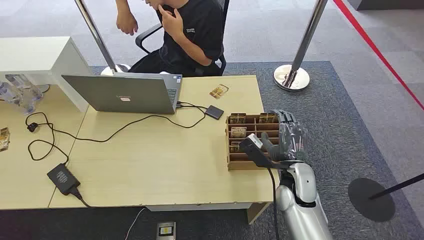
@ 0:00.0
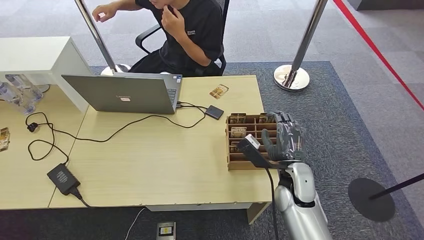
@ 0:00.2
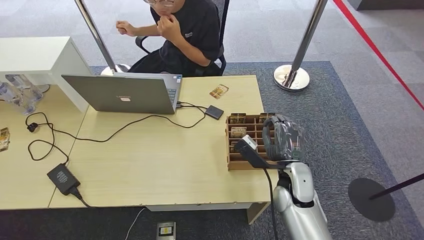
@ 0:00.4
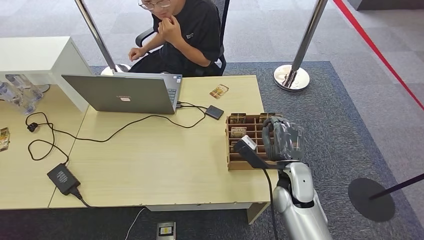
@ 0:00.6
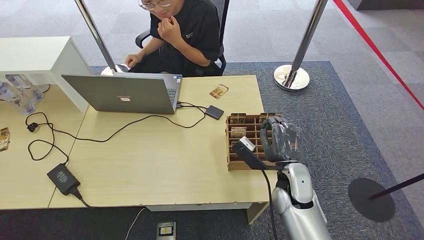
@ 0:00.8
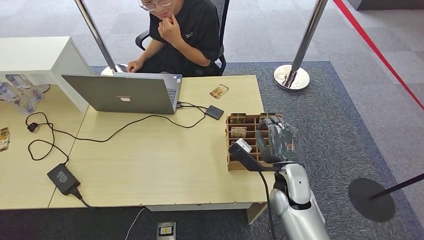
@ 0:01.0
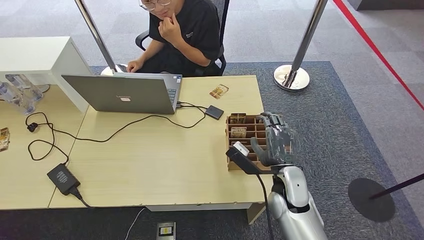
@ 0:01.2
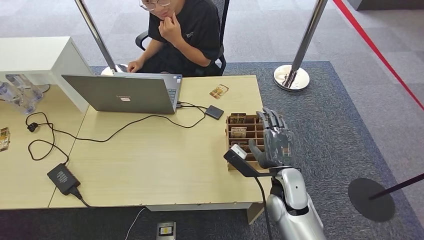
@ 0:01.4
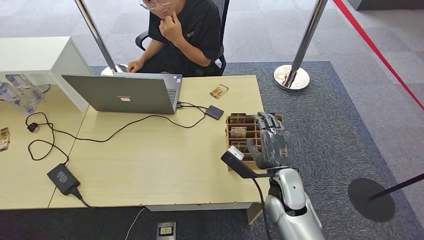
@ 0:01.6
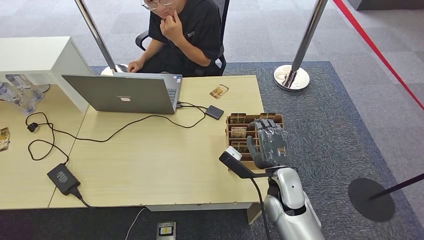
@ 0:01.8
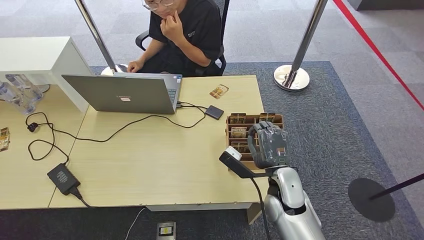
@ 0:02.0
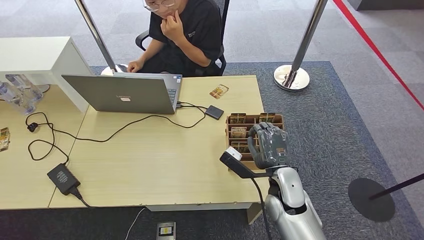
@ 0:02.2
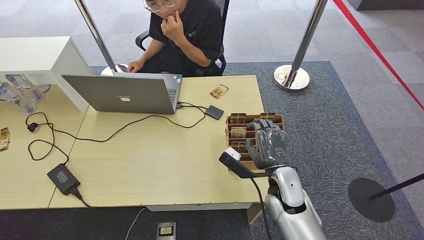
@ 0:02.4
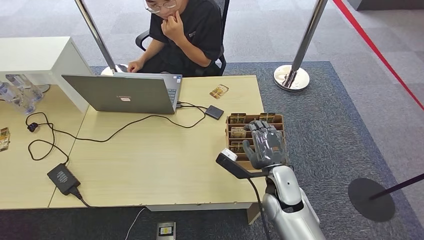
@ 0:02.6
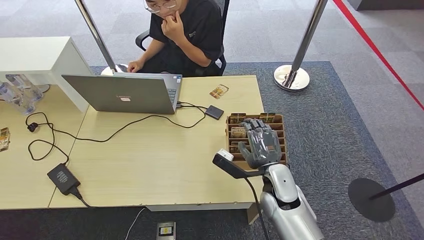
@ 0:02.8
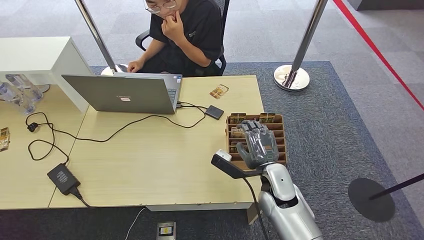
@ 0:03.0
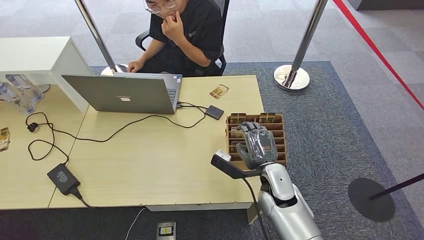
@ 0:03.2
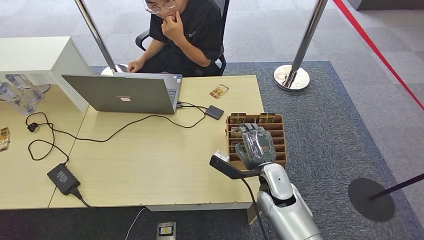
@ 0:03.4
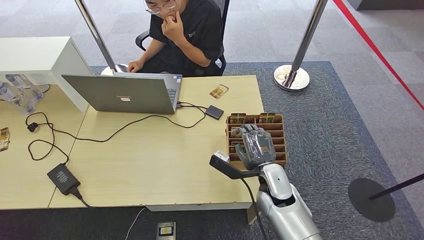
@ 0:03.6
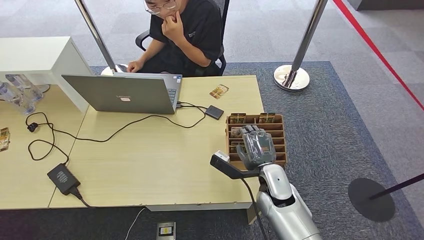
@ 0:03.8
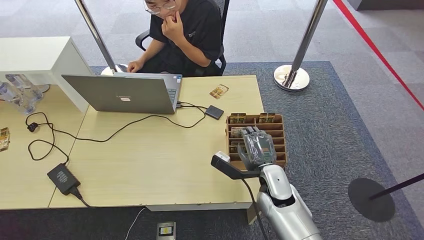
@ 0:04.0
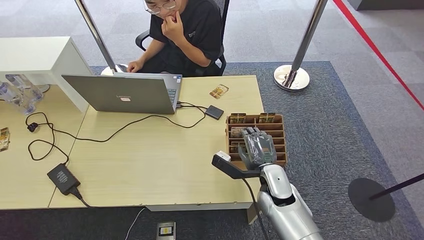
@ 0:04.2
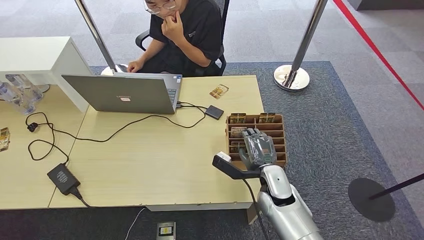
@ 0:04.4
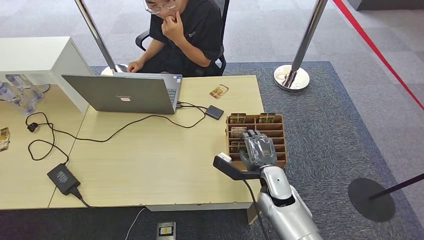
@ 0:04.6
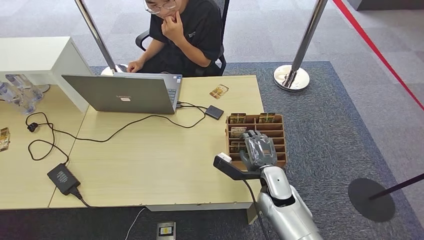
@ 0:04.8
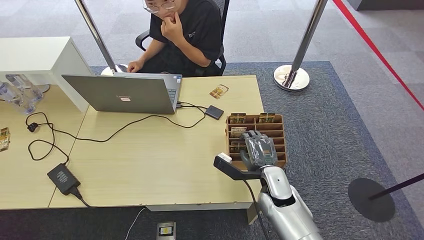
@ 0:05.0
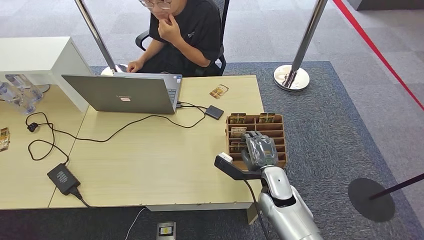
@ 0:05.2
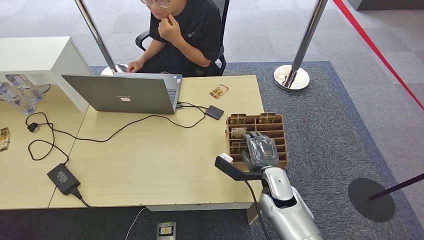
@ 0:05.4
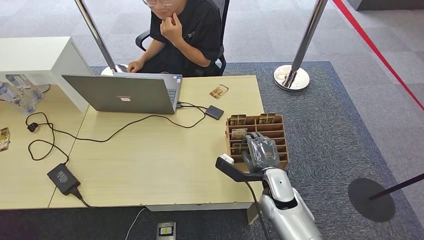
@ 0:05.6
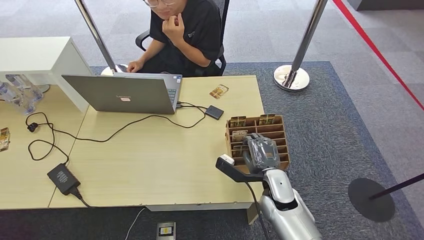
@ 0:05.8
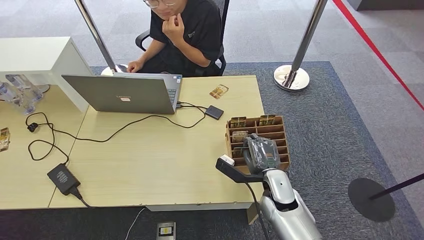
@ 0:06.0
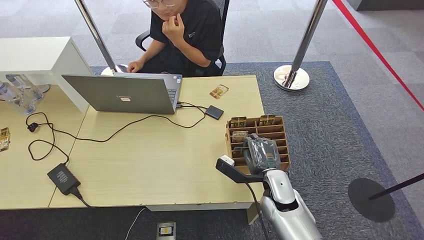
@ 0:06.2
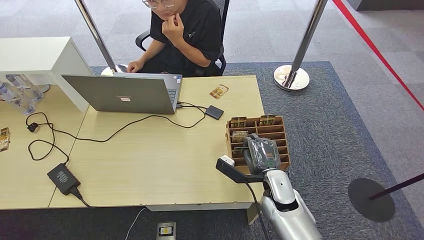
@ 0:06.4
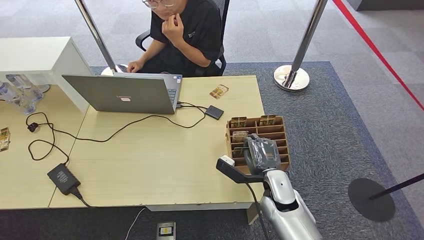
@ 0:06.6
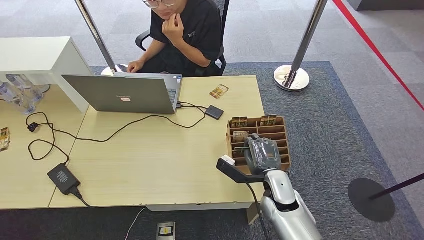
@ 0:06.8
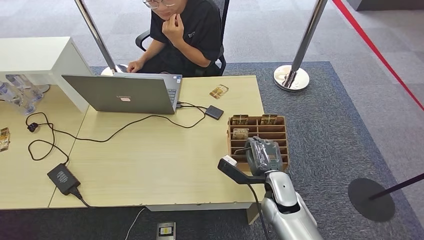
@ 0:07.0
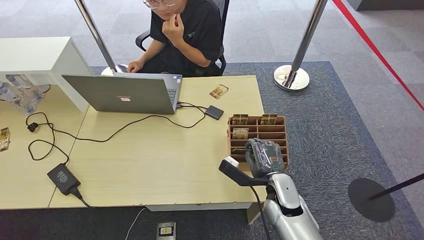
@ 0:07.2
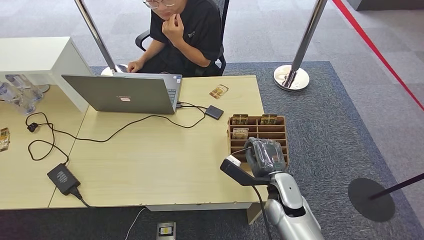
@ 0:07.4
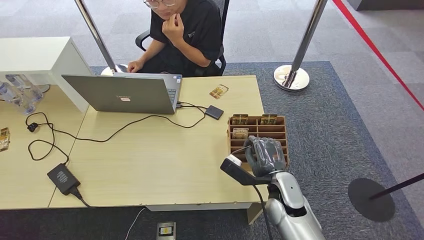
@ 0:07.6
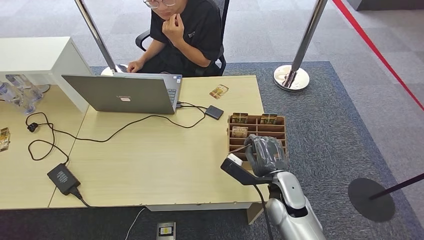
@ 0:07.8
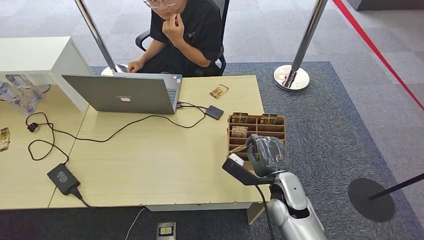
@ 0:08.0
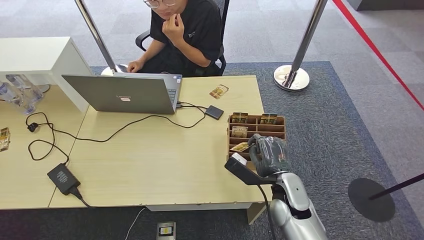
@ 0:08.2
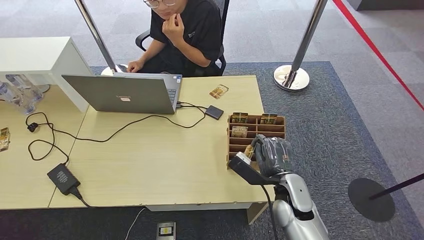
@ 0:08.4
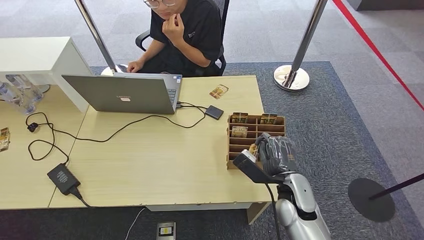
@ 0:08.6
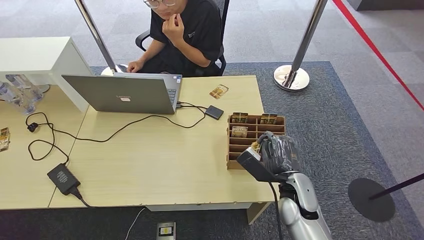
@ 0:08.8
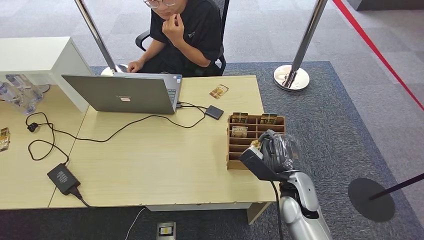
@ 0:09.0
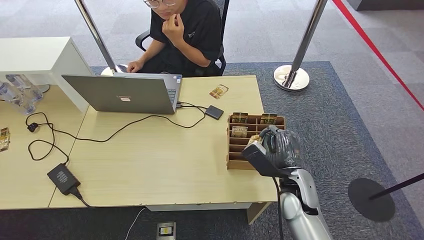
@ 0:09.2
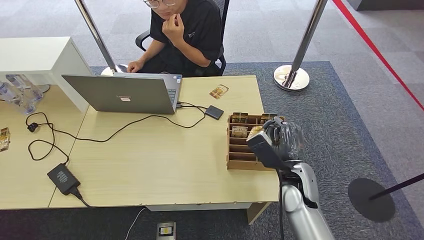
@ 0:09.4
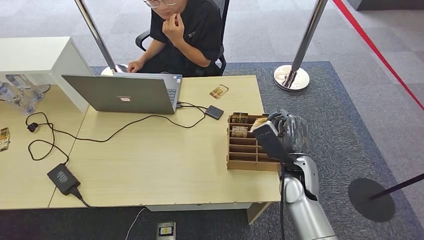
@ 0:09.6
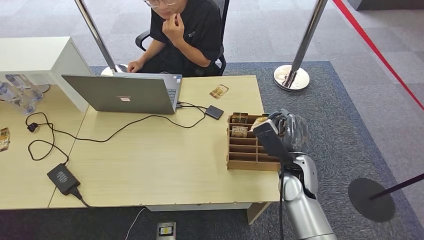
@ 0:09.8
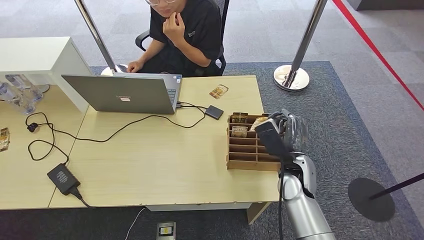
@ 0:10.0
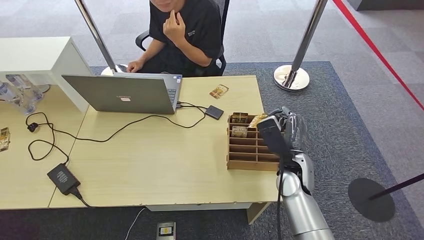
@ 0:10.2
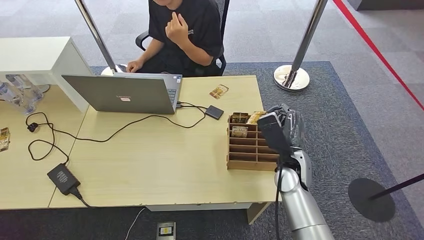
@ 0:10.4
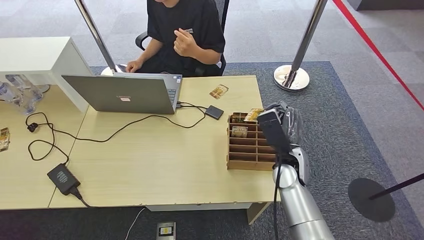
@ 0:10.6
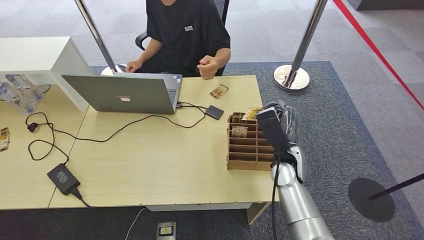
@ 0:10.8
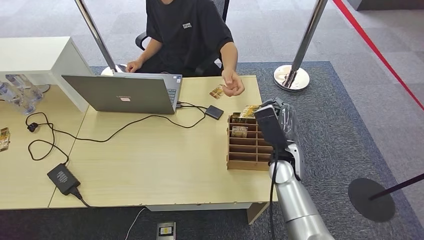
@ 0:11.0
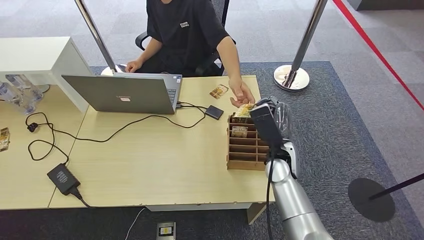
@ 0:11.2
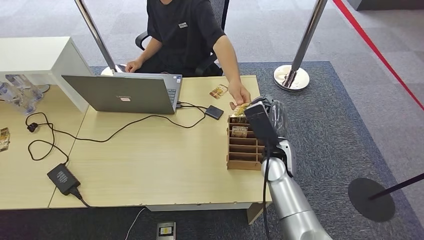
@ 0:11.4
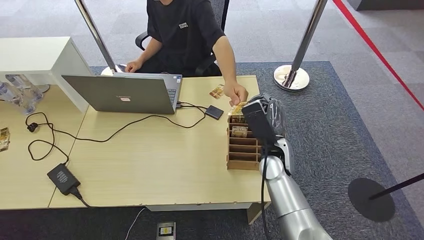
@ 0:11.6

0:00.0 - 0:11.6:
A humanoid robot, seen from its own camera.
Step, 0:00.0 - 0:10.8: Pick up the key card from the card box.
Step, 0:11.0 - 0:11.6: Hand the key card to the target.
0:01.4 - 0:04.4: There are only small adjustments of the hands.
0:04.4 - 0:05.8: Both hands stay about where they are.
0:05.8 - 0:07.2: The hands make only small movements.
0:07.2 - 0:08.8: The hands move only a little.
0:08.8 - 0:10.2: The right hand moves forward, roughly 5 cm.
0:10.2 - 0:11.6: The right hand ends up approximately 5 cm from where it was.

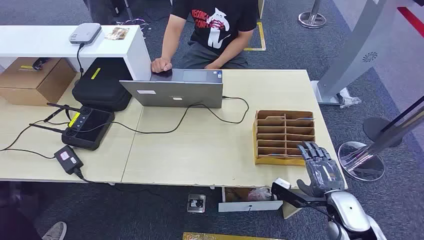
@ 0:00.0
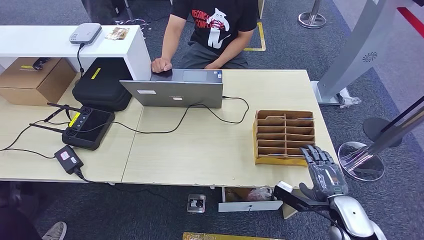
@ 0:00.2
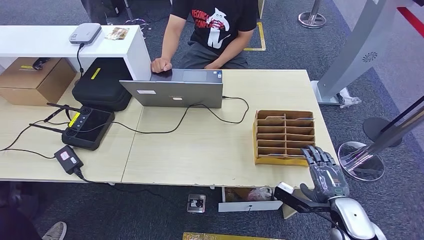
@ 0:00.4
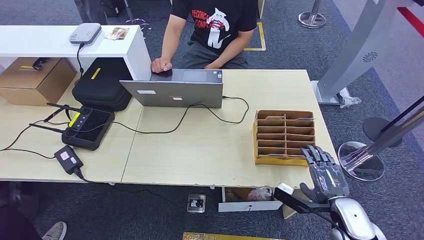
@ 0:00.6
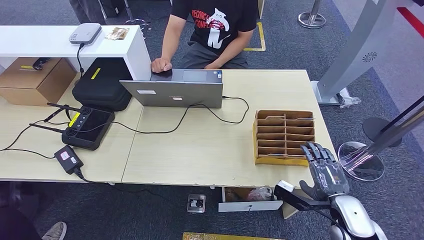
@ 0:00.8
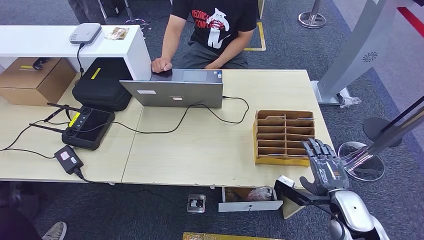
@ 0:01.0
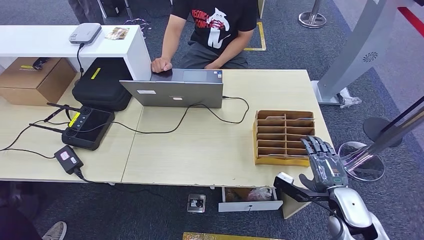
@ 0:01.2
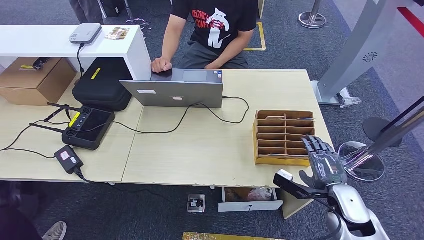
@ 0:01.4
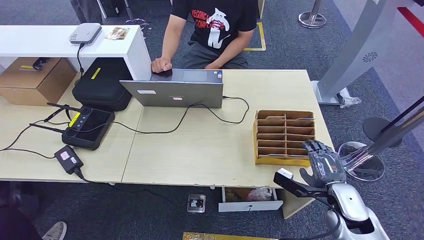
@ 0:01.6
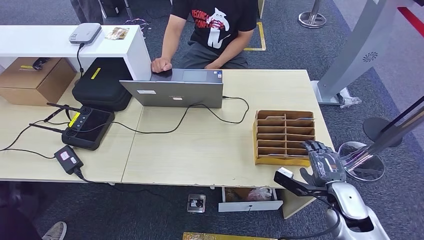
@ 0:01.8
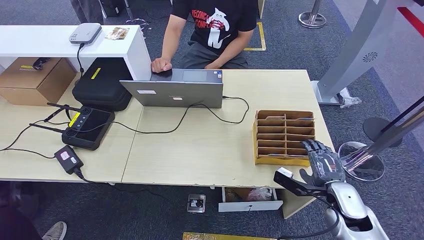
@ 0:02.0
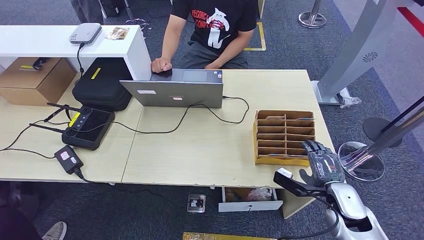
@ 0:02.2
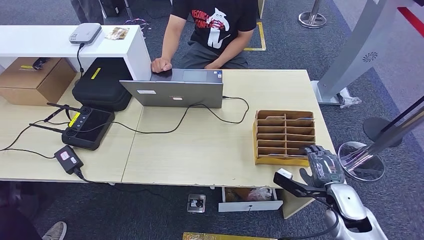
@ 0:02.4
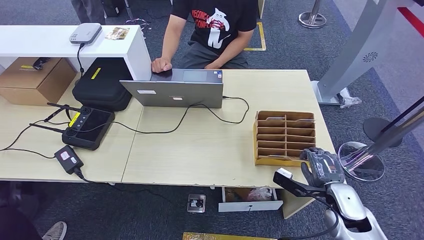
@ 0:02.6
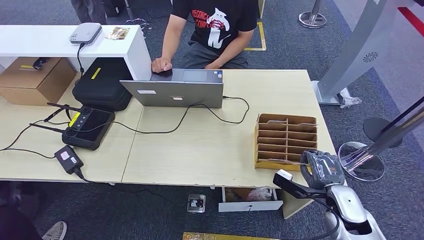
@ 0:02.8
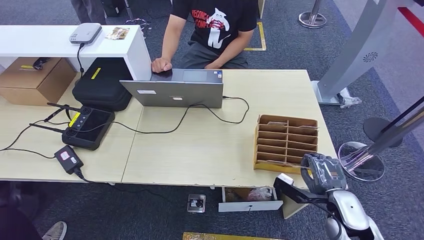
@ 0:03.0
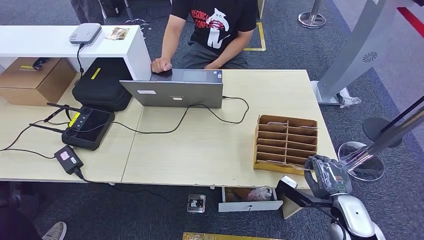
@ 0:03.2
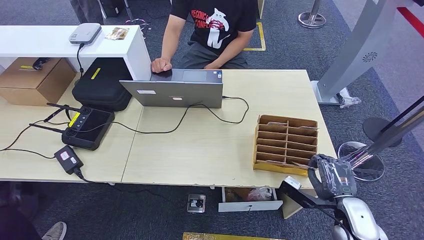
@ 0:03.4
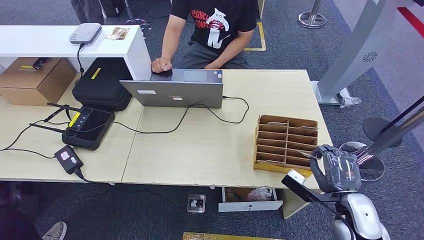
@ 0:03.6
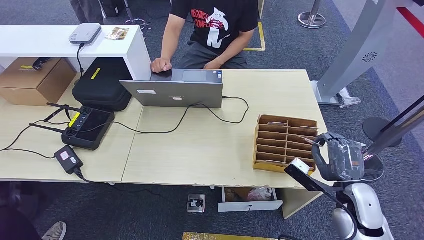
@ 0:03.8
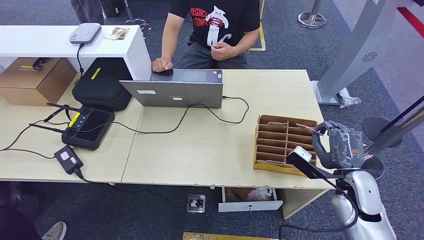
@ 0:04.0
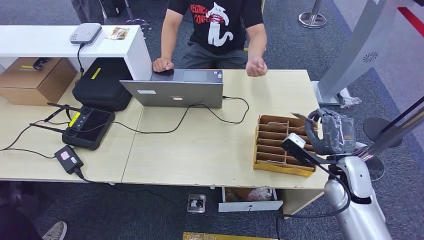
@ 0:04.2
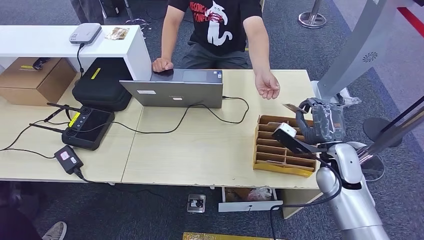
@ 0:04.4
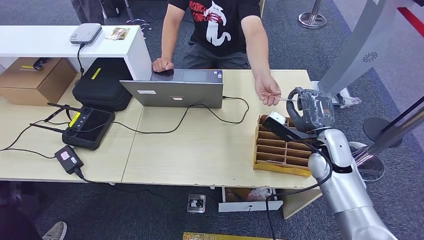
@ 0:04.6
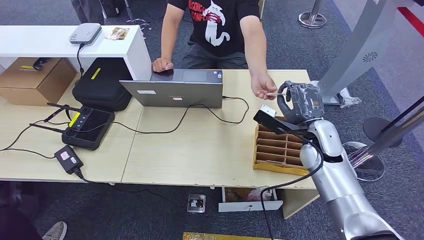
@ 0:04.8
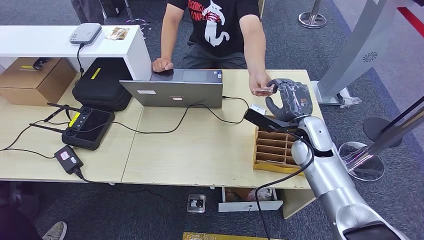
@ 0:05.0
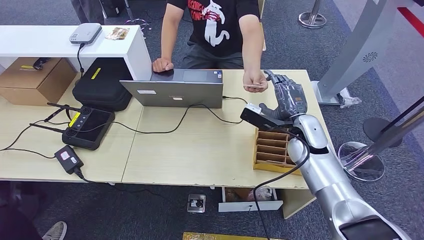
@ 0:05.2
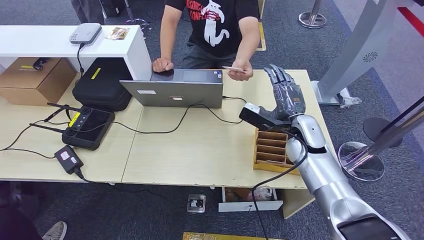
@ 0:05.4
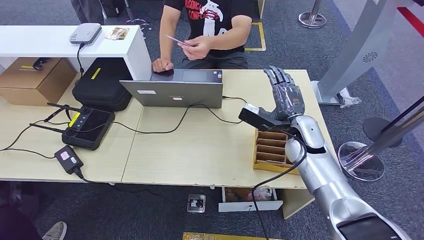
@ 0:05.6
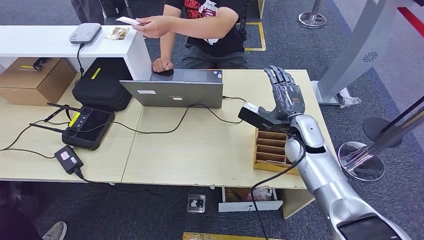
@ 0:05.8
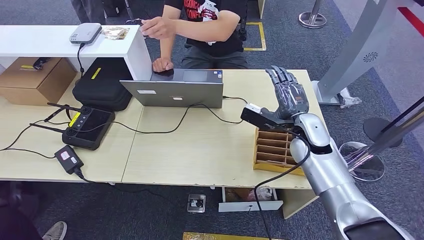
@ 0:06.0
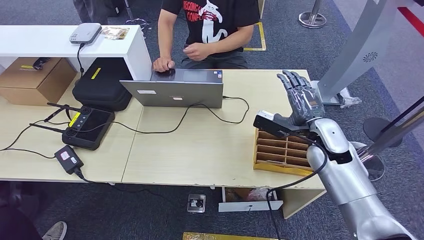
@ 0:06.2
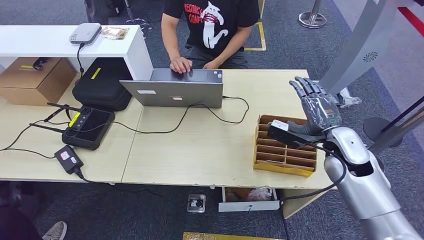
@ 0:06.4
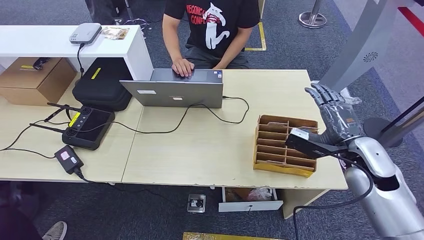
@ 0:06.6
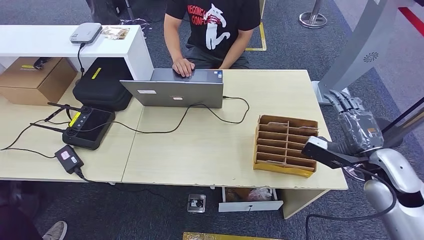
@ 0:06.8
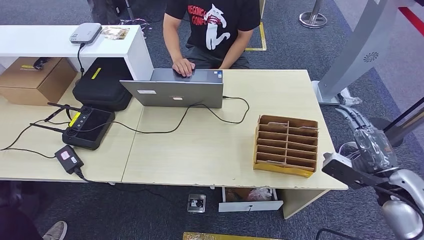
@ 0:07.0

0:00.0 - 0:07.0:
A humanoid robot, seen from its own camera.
Step, 0:00.0 - 0:04.0: Pick up the key card from the card box.
Step, 0:04.2 - 0:07.0: Hand the key card to the target.
0:01.4 - 0:02.8: Both hands stay put.
0:02.8 - 0:04.2: The right hand moves upward and forward, roughly 10 cm.
0:04.2 - 0:05.6: The right hand moves to the left and forward, about 15 cm.
0:05.6 - 0:07.0: The right hand goes approximately 25 cm to the right and backward.
